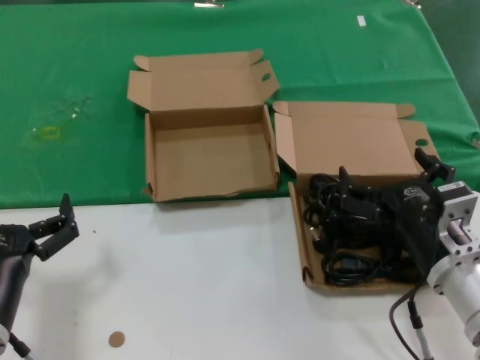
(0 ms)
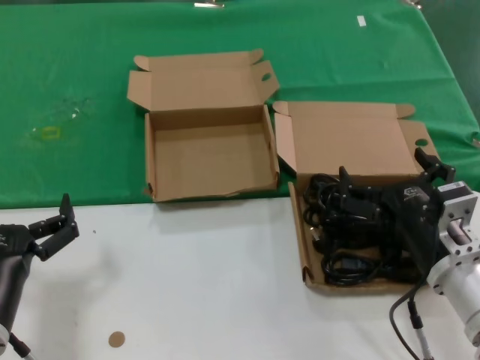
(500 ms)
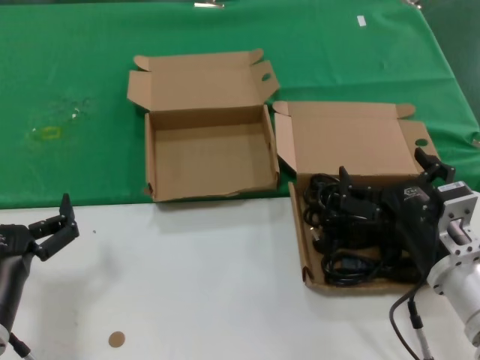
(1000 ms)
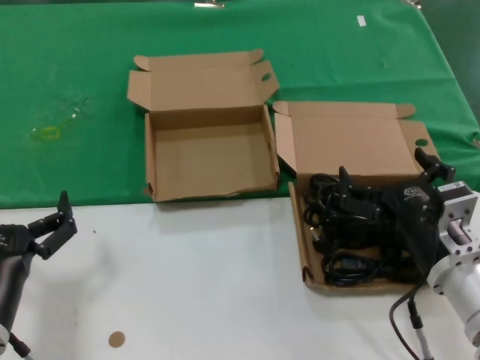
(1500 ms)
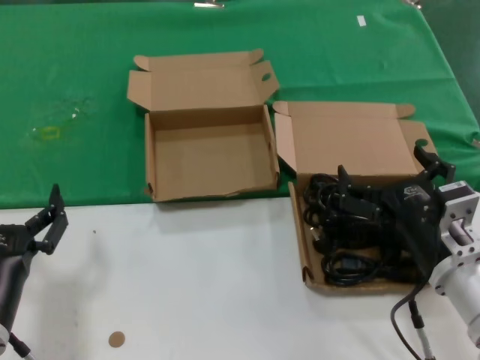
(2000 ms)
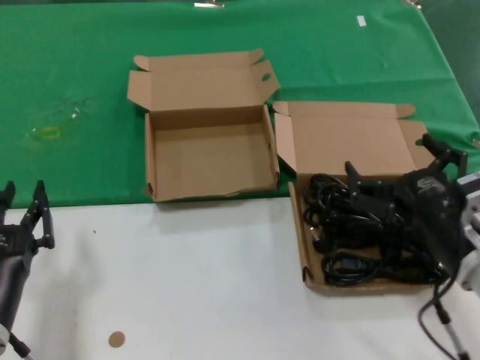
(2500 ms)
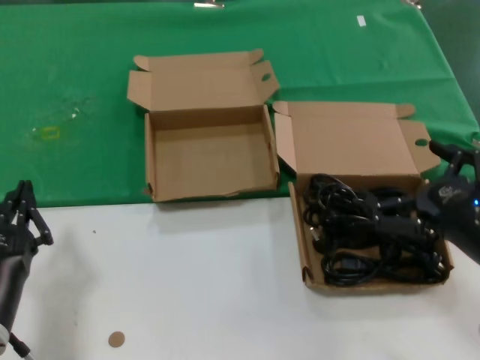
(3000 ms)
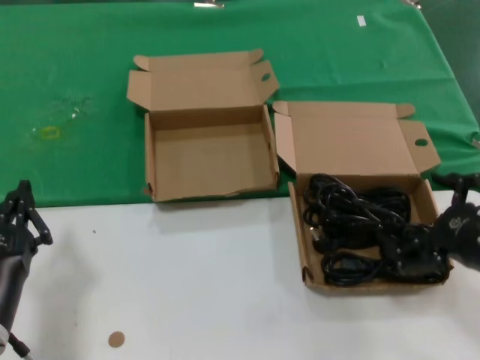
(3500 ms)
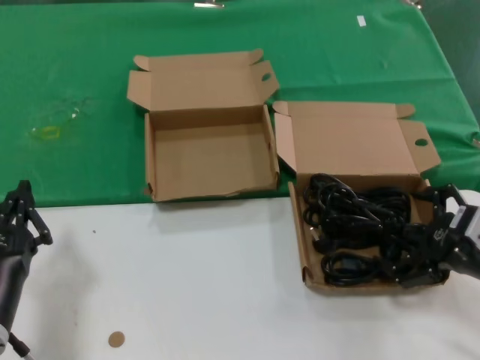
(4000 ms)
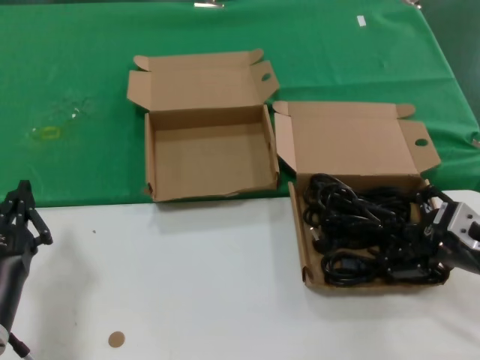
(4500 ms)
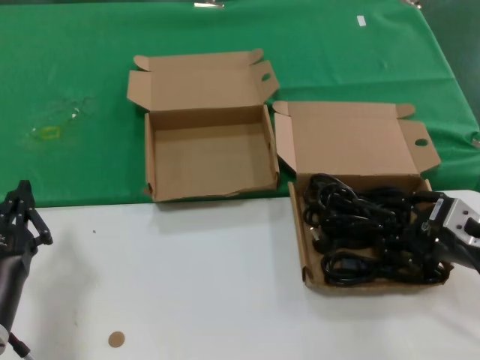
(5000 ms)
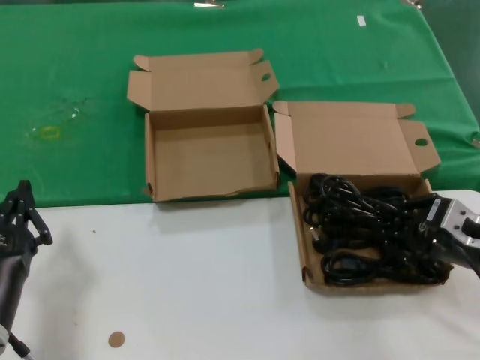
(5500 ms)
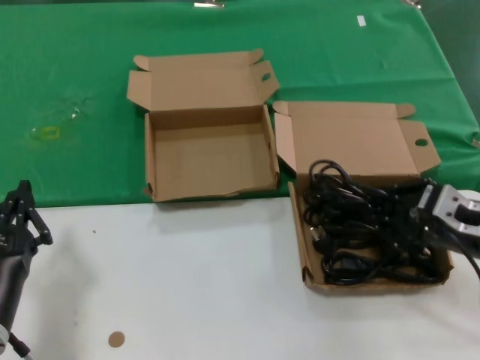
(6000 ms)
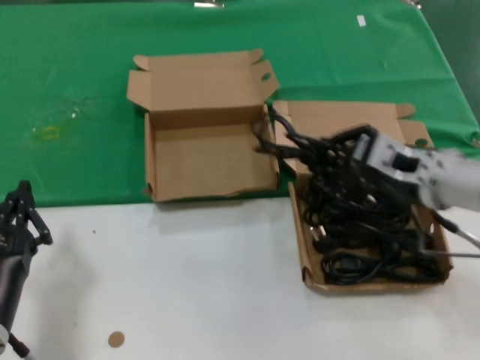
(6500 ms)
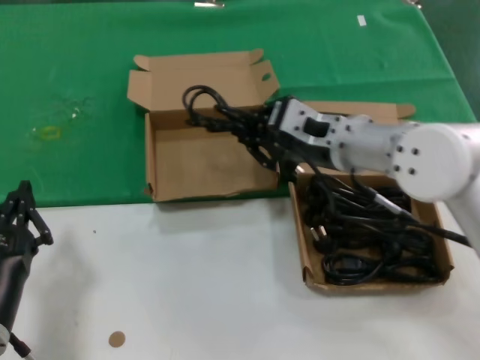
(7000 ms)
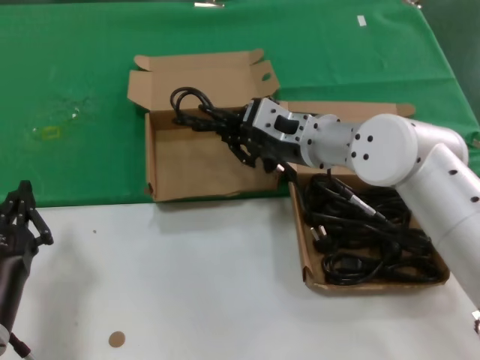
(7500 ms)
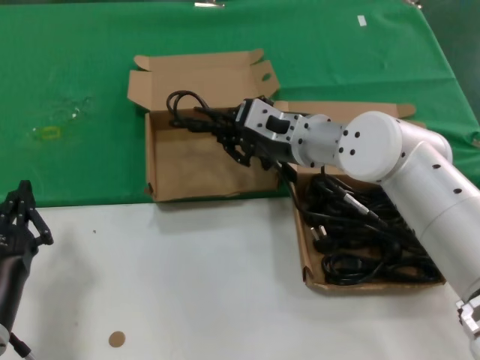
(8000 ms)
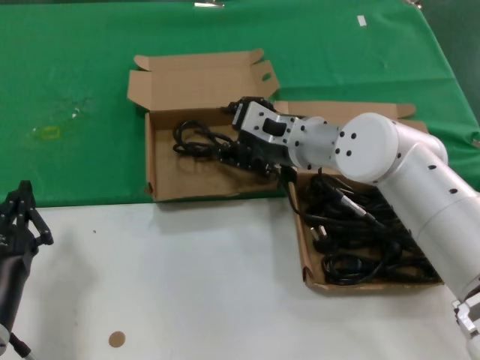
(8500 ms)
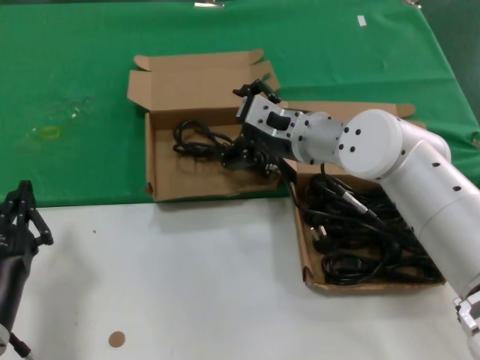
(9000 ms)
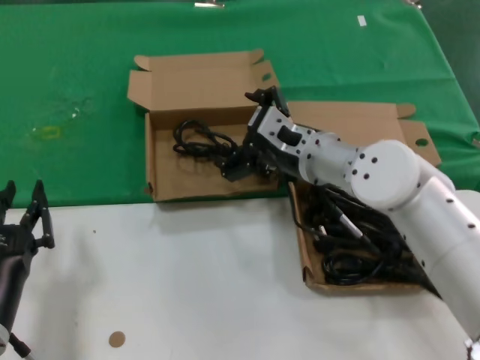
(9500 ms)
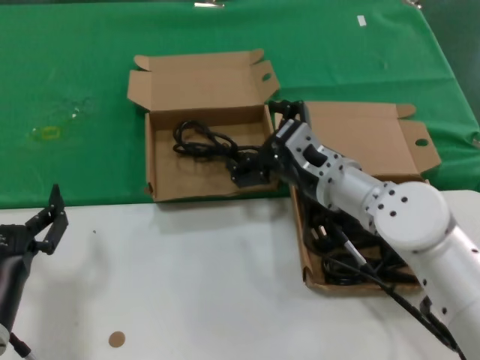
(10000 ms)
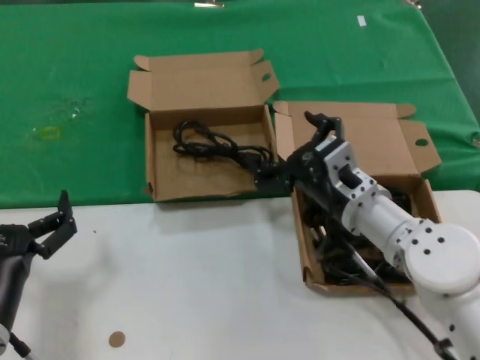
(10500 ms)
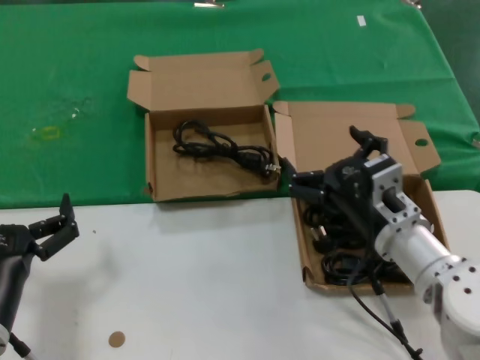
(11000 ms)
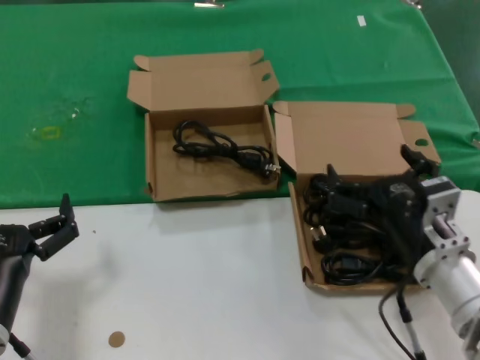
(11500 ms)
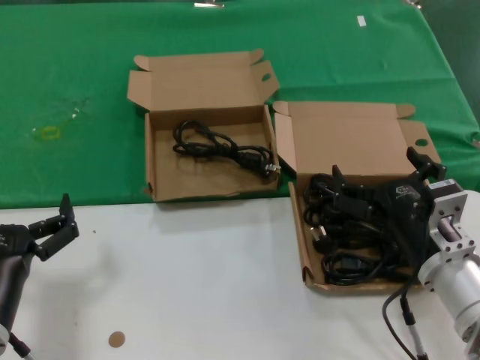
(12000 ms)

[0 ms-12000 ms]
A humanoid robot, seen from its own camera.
Task of the whole recording: take the parts from the box containing them and put them into an empty box.
Step, 0 ms to 5500 ms: Grasp the data cable.
Step, 6000 ms to 8500 ms: Place the data cable in the another box.
0 ms to 2000 ms: Both hands stay put.
2000 ms to 4000 ms: The right hand is displaced to the right by roughly 10 cm.
4000 ms to 6000 ms: The hands move only a little.
6000 ms to 8000 ms: The right hand shifts about 25 cm to the left and forward.
8000 ms to 10000 ms: The right hand shifts approximately 10 cm downward and backward.
10000 ms to 12000 ms: The right hand goes about 15 cm backward and to the right.

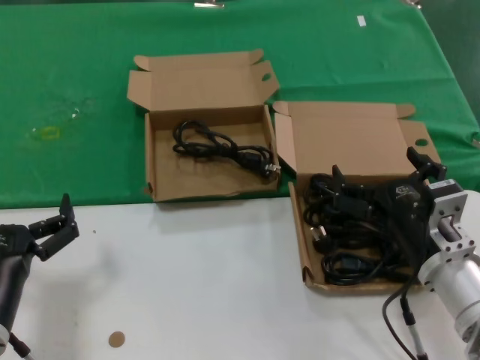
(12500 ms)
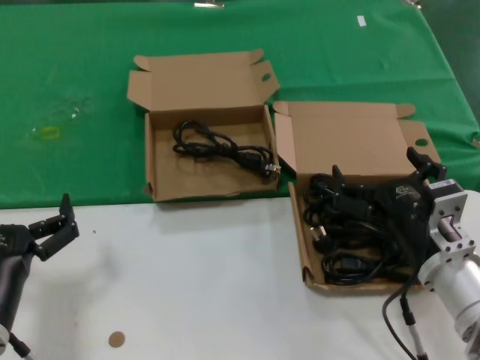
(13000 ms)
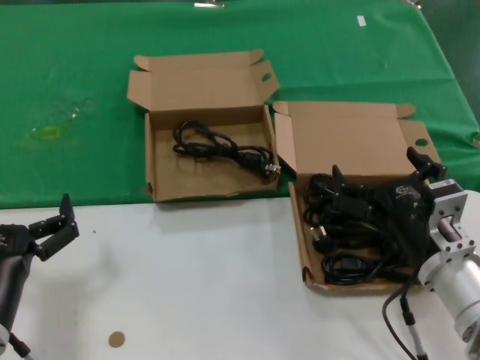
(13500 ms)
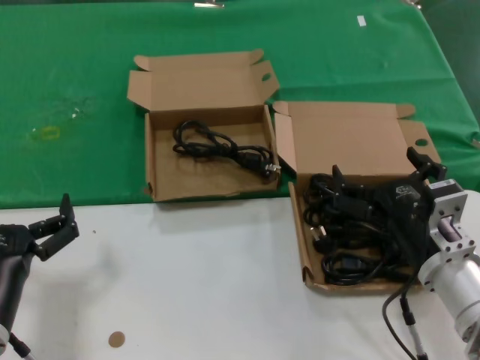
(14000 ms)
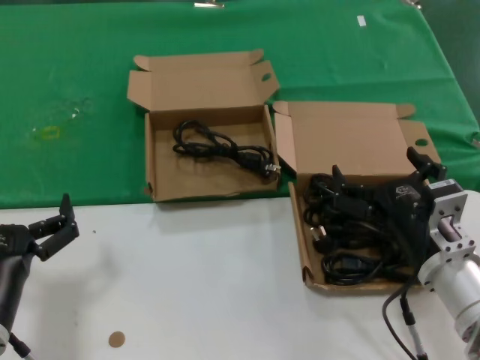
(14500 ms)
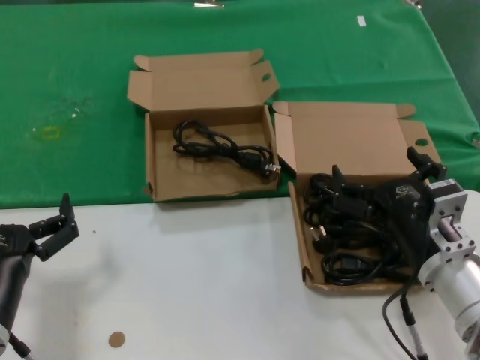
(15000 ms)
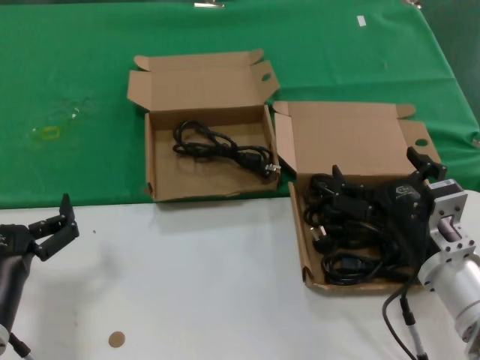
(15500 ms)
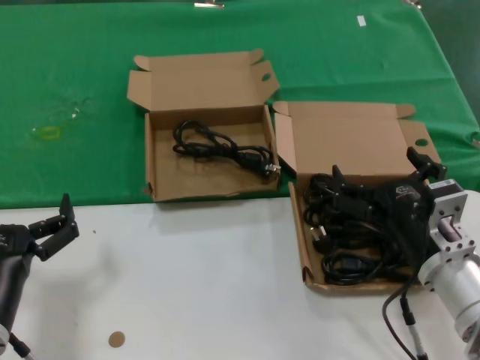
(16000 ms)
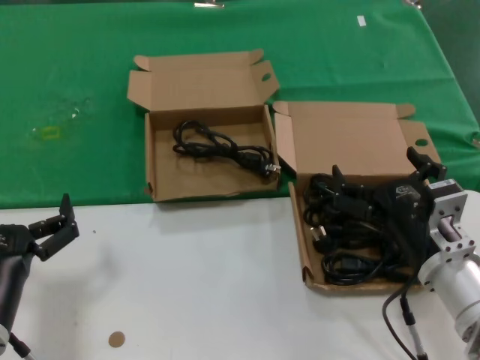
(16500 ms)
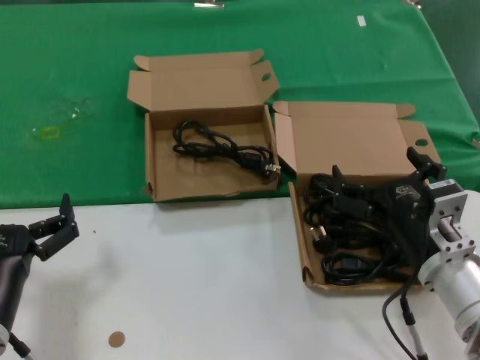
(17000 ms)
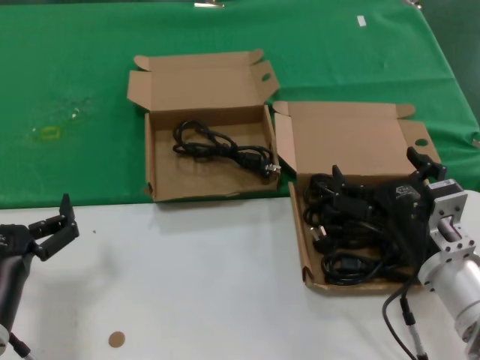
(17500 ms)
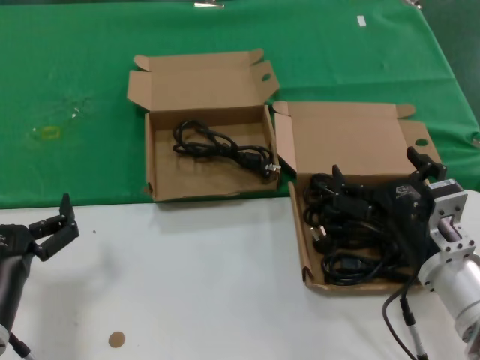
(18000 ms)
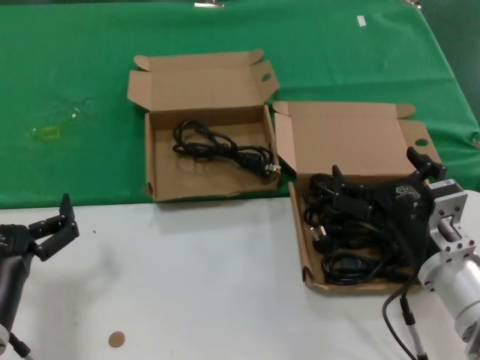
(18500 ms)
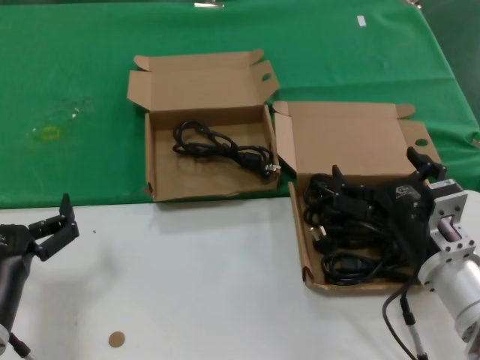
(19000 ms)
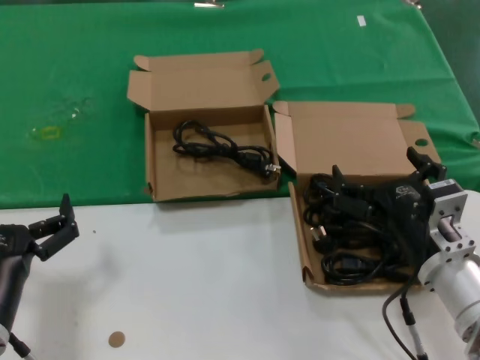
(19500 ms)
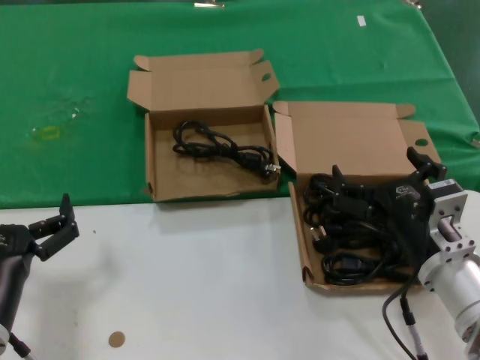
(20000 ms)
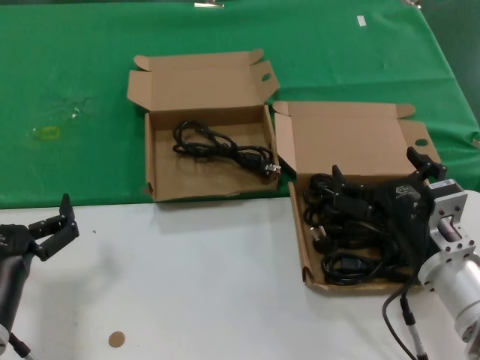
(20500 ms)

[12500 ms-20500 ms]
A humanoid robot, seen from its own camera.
Task of the whole recording: take the parts from the box containing them and put them into an empty box.
12500 ms to 20500 ms: Both hands stay put.

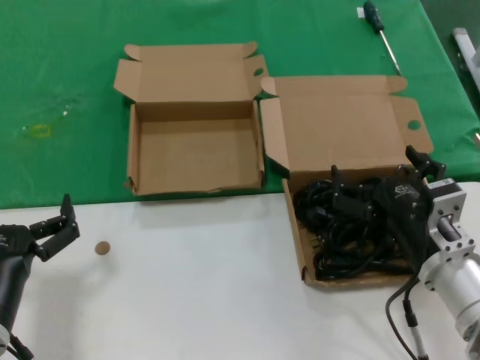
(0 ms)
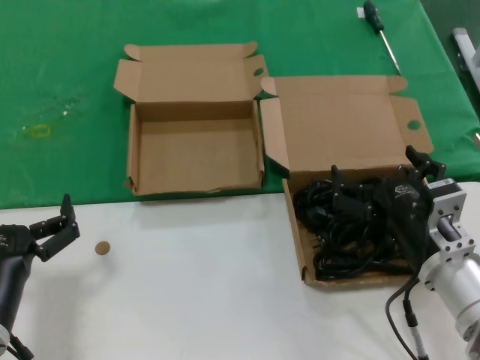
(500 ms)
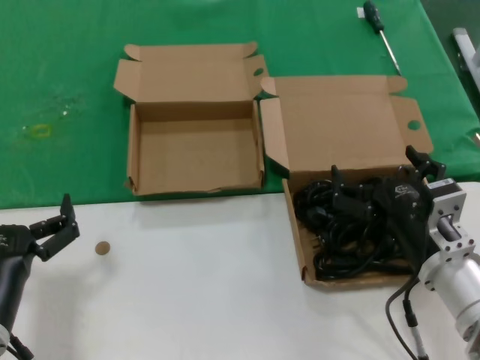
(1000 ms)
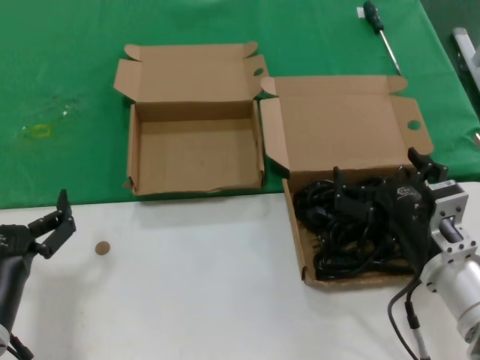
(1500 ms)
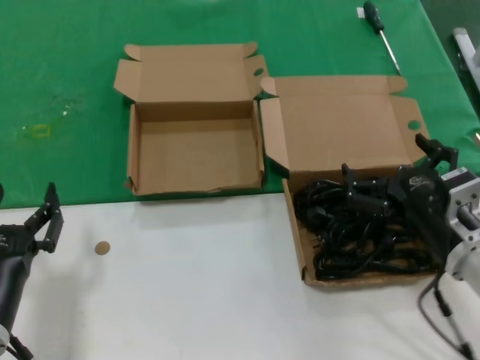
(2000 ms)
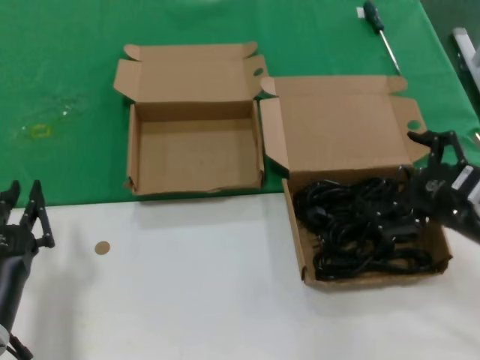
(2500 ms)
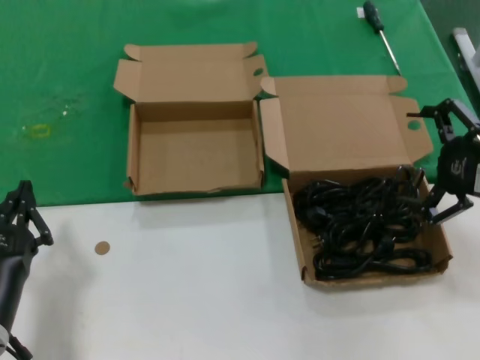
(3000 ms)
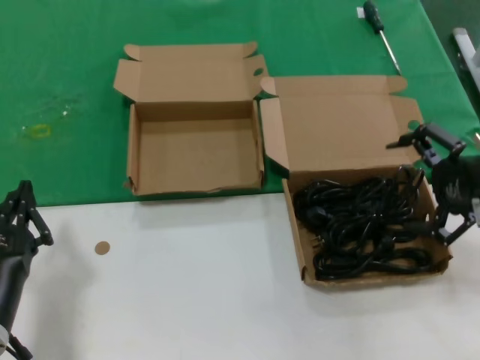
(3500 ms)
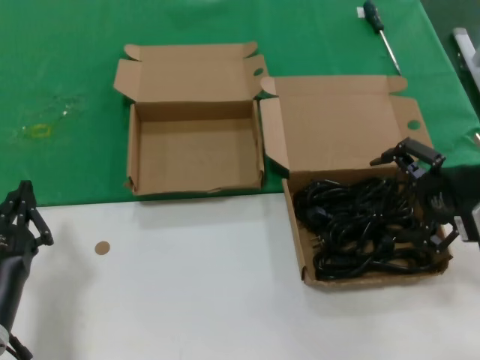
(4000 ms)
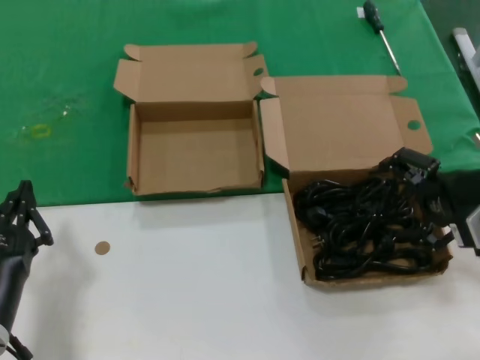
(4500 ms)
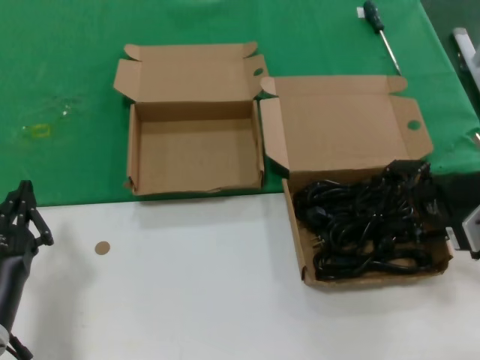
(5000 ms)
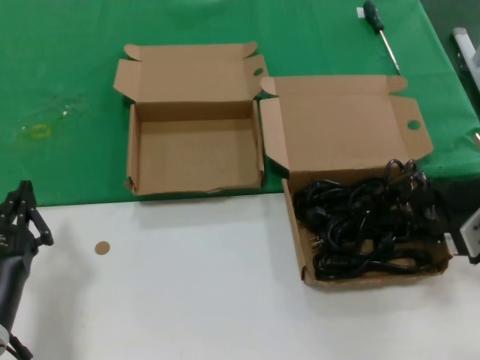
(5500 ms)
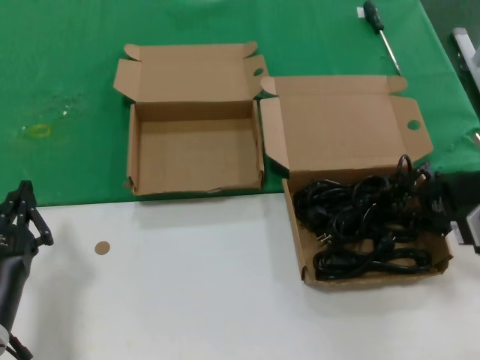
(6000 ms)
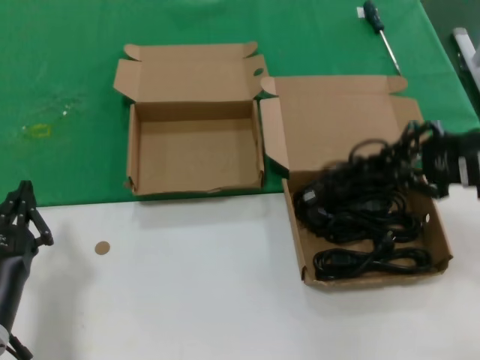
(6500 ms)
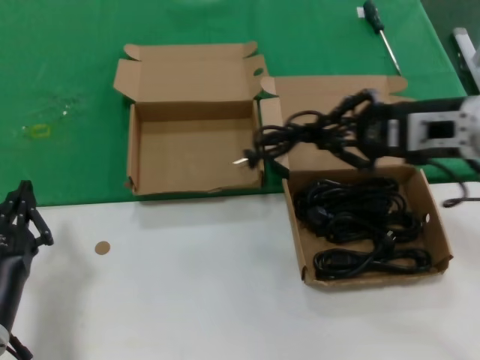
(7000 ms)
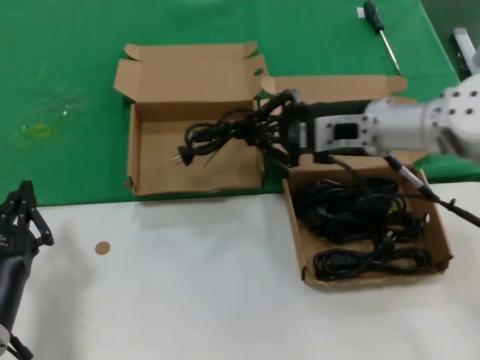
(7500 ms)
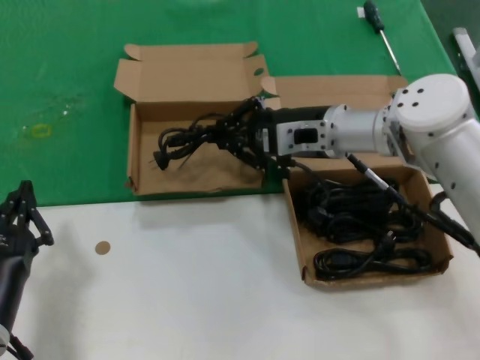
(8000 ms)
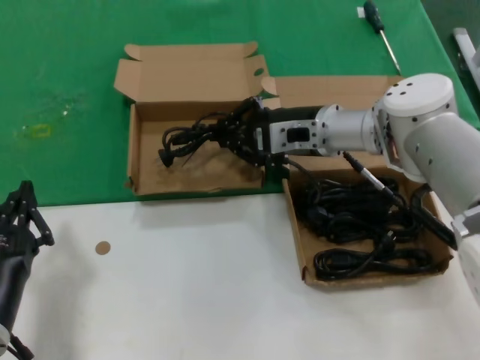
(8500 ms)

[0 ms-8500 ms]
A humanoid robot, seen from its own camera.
Task of the whole recording: take the parts from the box containing them and put them into an empty box.
Step, 0 ms to 5500 ms: Grasp the data cable.
0 ms to 2000 ms: The hands stay close to where they were, moving slightly.
2000 ms to 4000 ms: The right hand heads upward, to the right and forward, covering approximately 15 cm.
4000 ms to 6500 ms: The hands move only a little.
6500 ms to 8500 ms: The right hand travels to the left and forward by approximately 25 cm.
